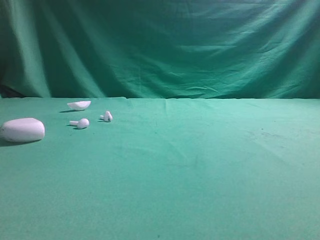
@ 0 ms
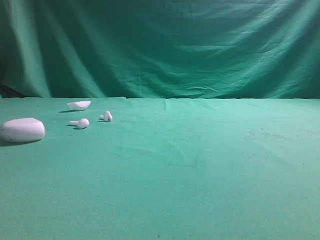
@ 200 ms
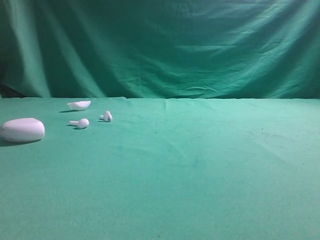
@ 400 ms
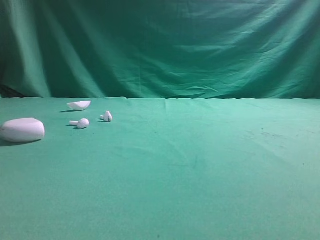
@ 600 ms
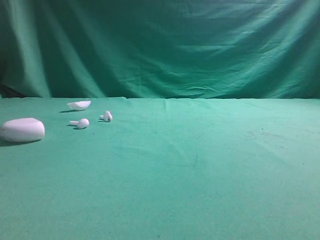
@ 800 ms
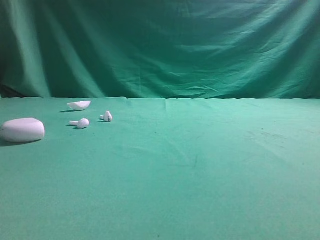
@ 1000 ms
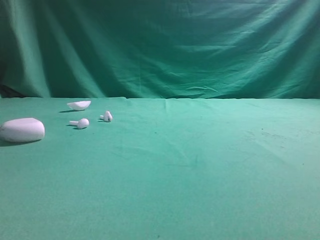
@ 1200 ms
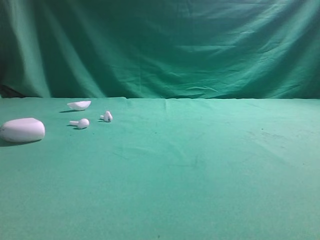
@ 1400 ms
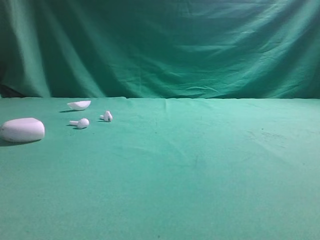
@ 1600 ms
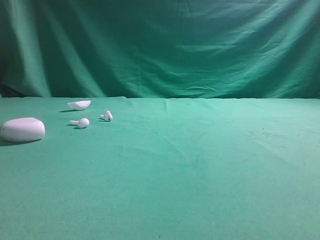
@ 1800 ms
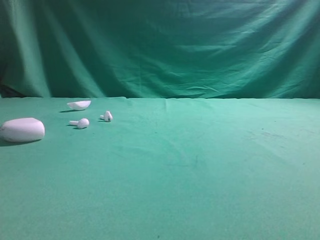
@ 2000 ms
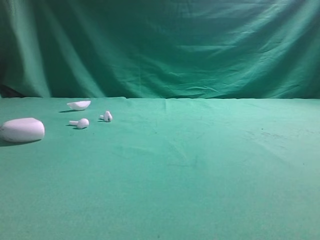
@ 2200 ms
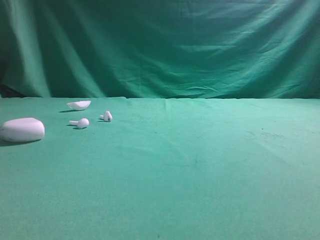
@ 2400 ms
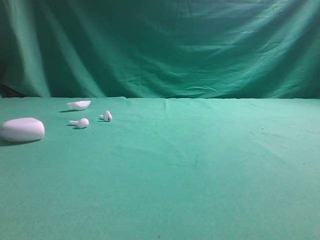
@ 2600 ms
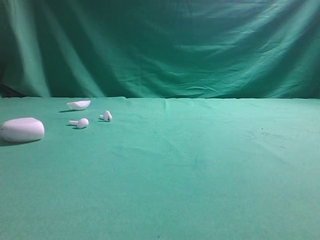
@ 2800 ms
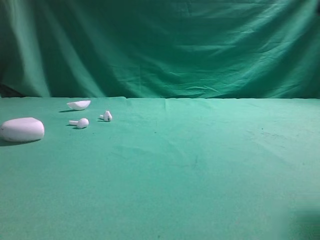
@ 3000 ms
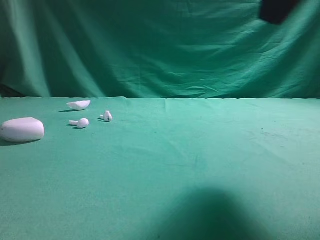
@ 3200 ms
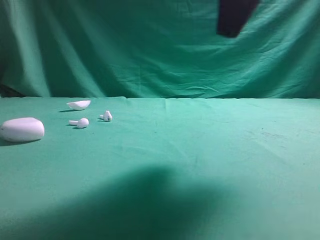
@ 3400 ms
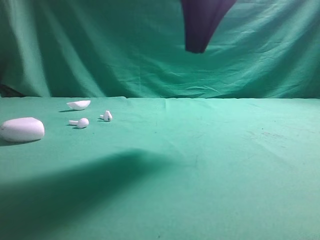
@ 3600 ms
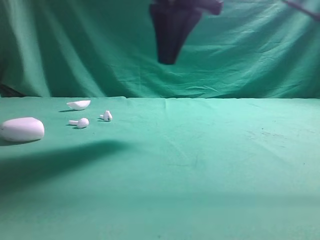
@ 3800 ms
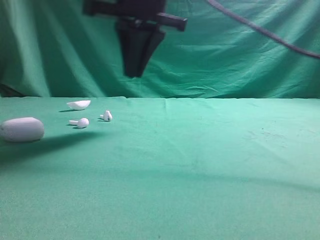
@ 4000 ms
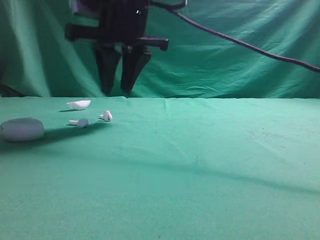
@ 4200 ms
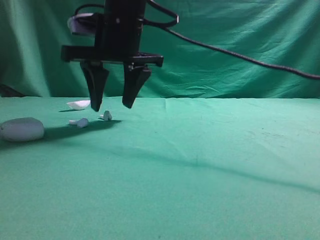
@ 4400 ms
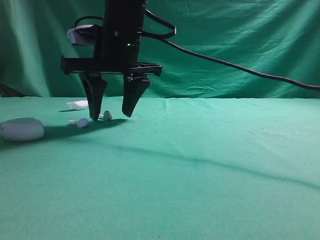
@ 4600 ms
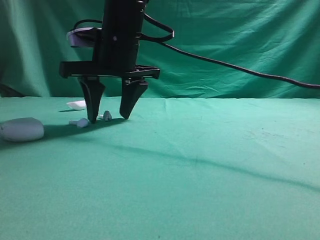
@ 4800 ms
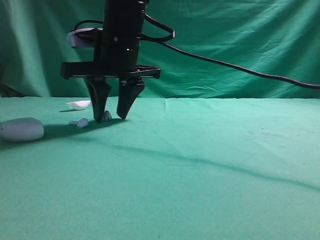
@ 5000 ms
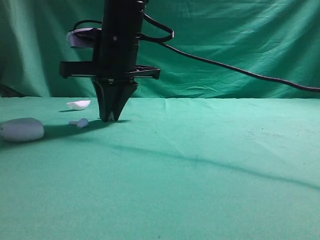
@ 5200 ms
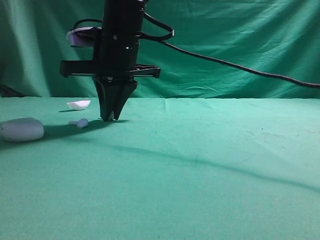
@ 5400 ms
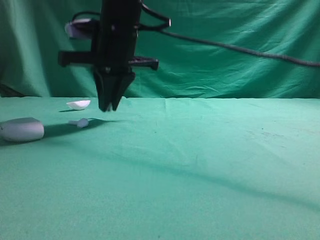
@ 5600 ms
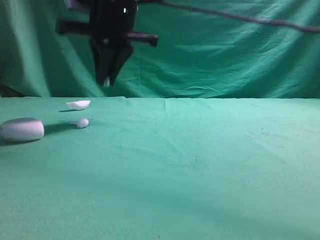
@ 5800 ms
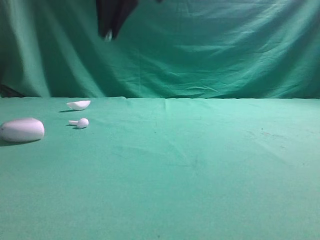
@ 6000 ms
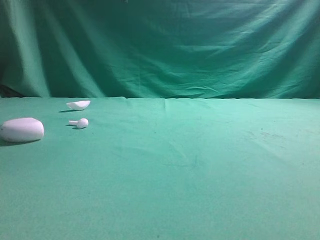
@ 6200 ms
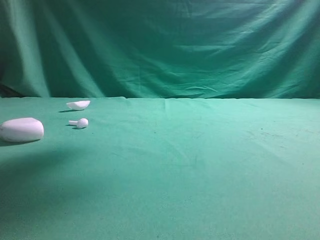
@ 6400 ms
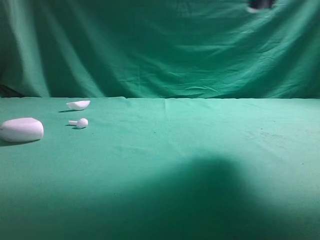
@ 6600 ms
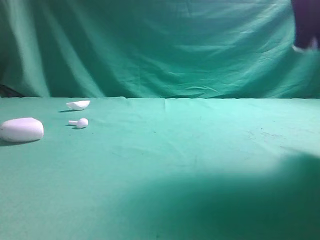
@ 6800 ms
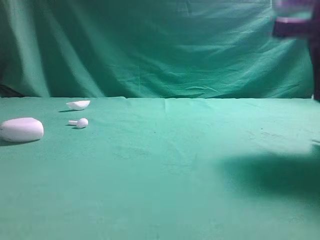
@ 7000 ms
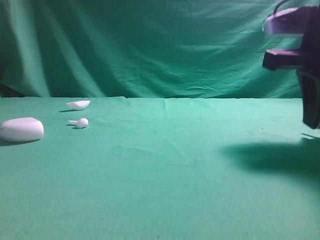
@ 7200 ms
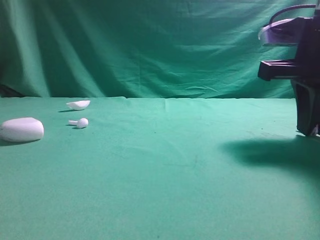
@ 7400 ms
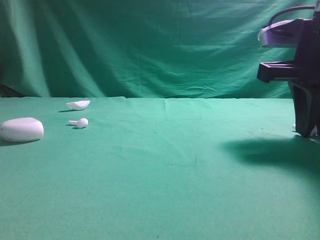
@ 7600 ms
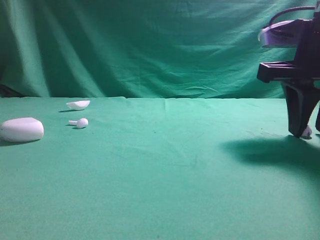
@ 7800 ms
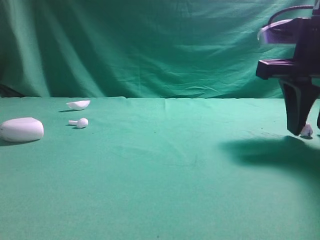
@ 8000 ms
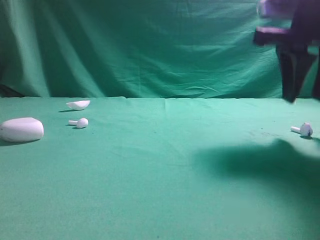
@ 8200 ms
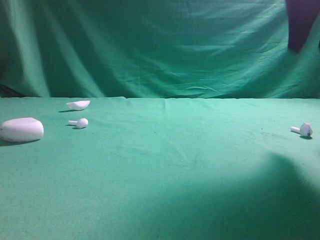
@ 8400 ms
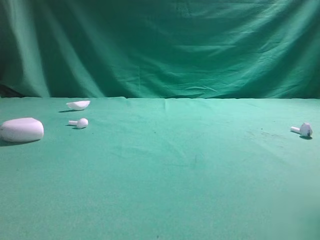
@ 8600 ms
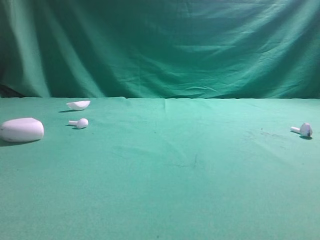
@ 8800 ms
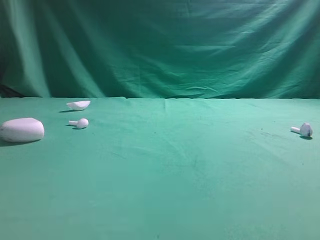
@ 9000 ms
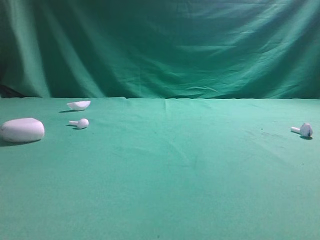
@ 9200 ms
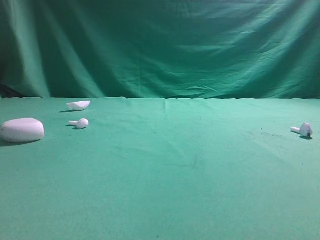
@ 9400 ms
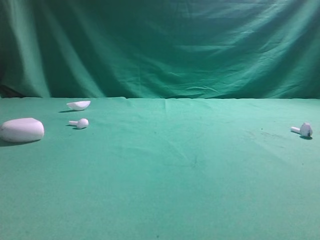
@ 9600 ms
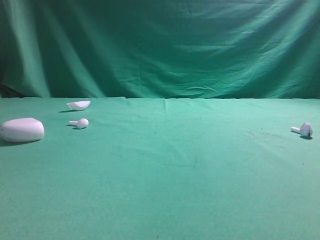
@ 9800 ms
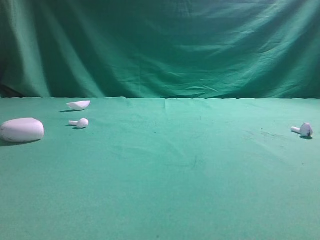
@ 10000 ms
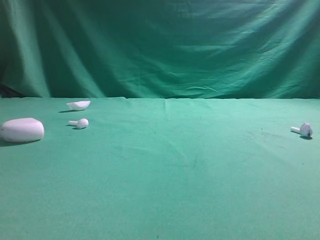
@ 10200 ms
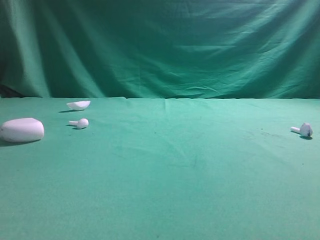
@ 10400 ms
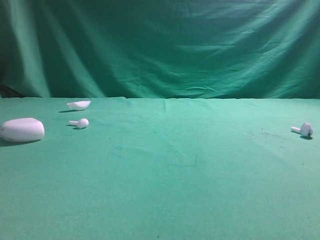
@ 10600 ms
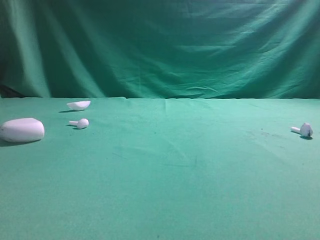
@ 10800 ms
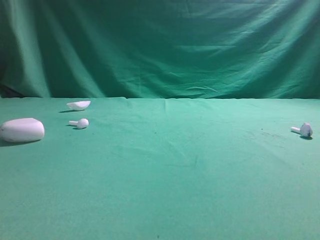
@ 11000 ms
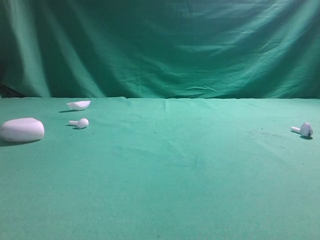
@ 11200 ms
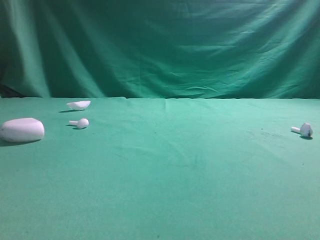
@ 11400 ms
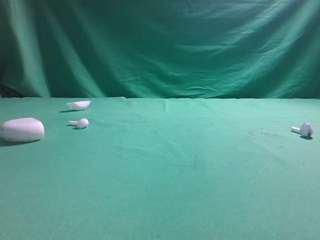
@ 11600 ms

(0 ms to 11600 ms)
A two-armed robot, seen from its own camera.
Step, 0 ms - 5800 ms: Grasp the Bluetooth earbud.
Step, 6000 ms - 8200 ms: Place bluetooth earbud on the right side of the table.
